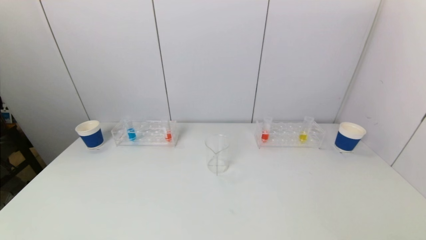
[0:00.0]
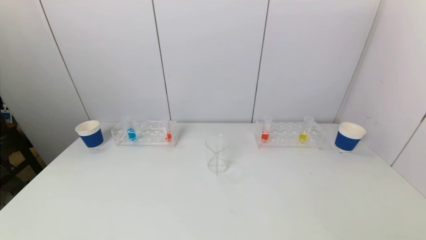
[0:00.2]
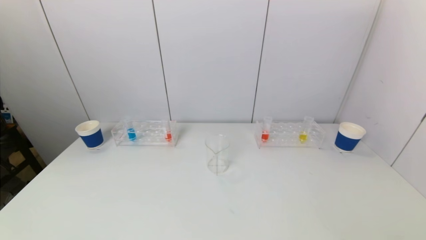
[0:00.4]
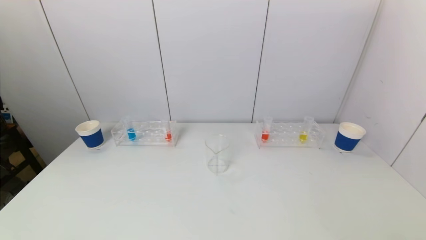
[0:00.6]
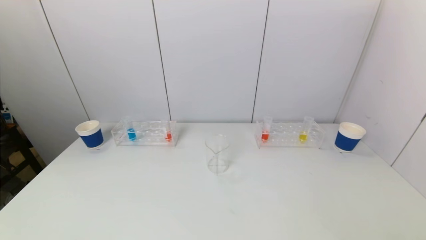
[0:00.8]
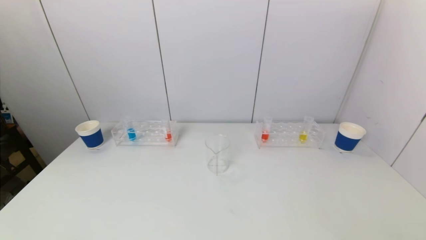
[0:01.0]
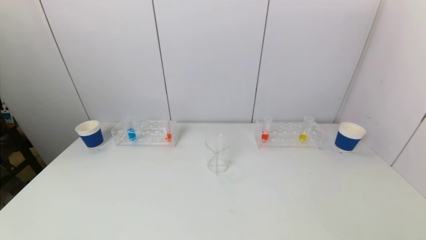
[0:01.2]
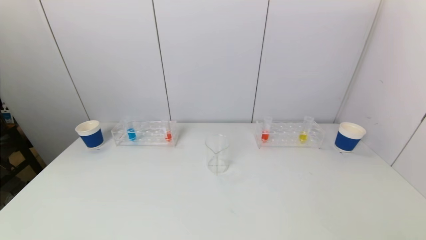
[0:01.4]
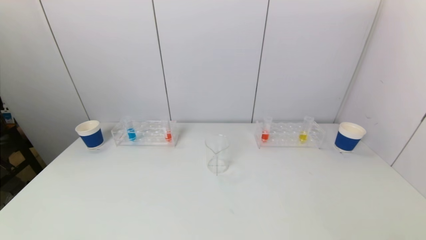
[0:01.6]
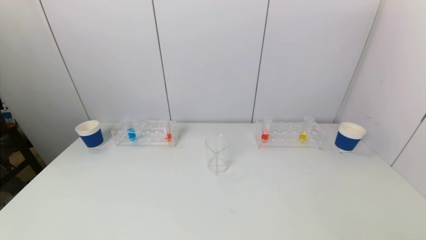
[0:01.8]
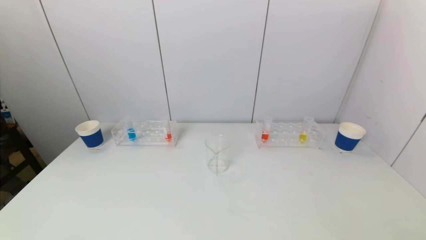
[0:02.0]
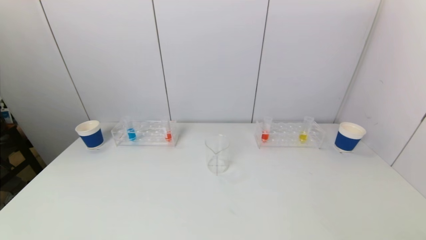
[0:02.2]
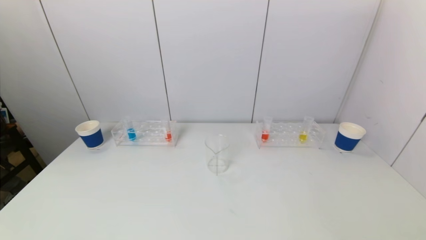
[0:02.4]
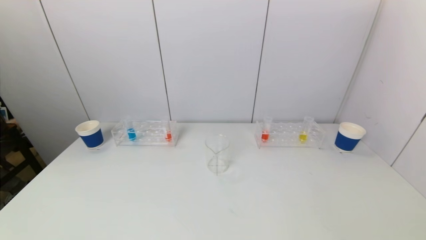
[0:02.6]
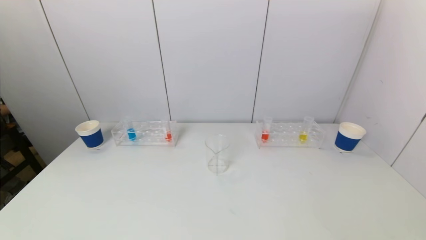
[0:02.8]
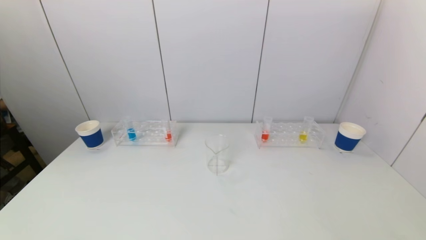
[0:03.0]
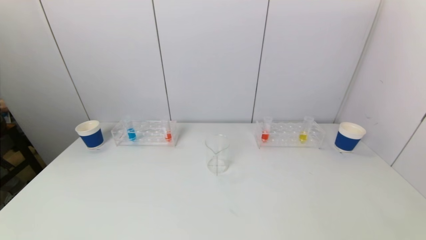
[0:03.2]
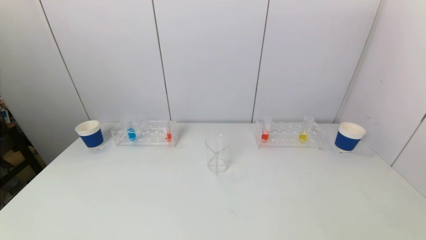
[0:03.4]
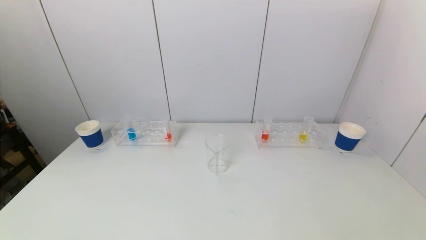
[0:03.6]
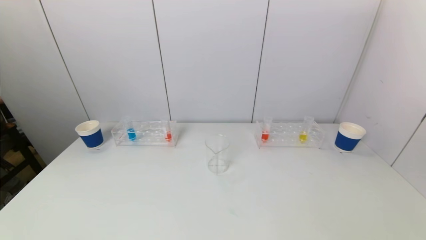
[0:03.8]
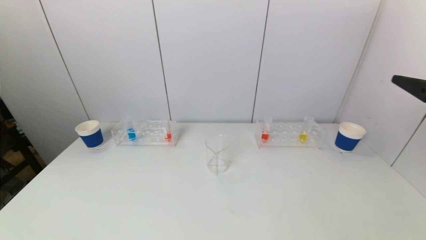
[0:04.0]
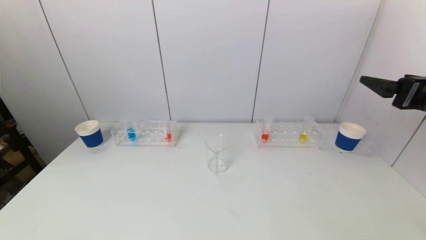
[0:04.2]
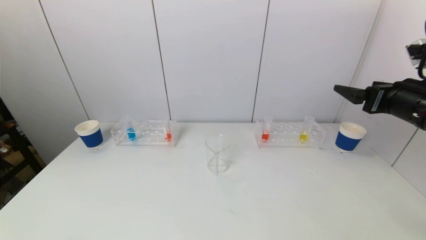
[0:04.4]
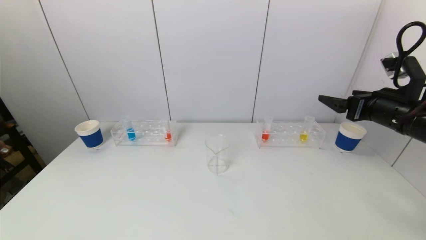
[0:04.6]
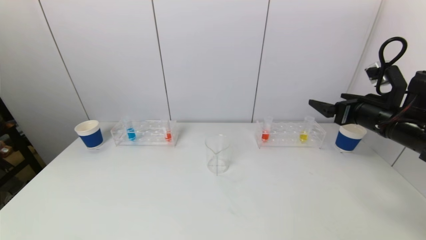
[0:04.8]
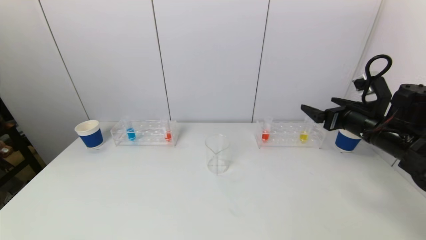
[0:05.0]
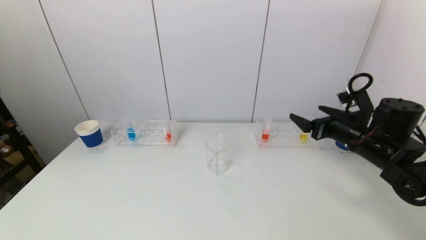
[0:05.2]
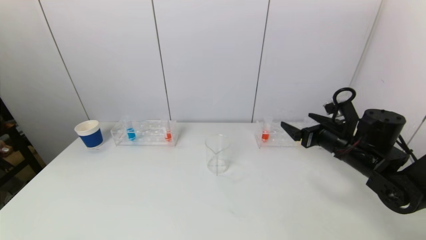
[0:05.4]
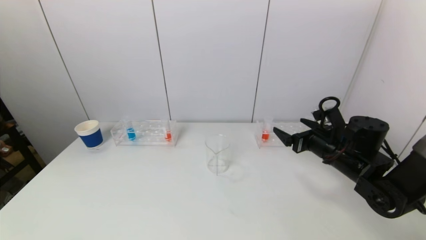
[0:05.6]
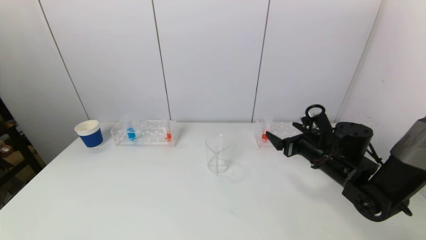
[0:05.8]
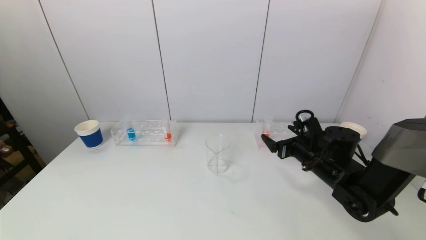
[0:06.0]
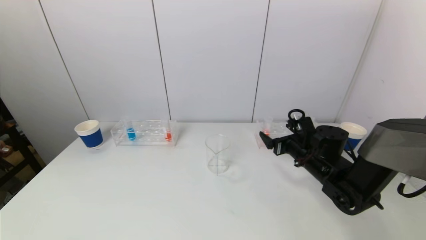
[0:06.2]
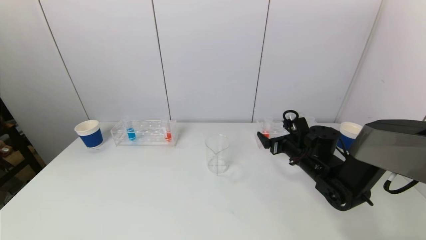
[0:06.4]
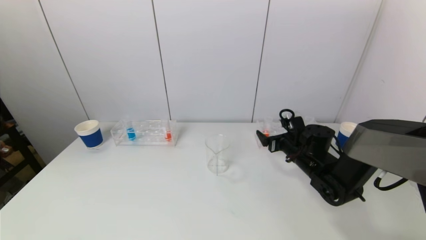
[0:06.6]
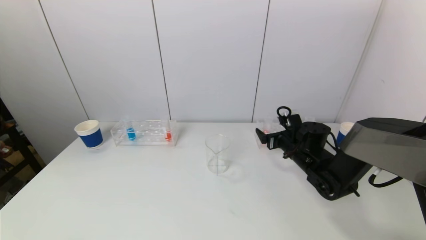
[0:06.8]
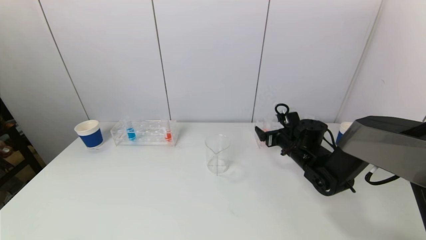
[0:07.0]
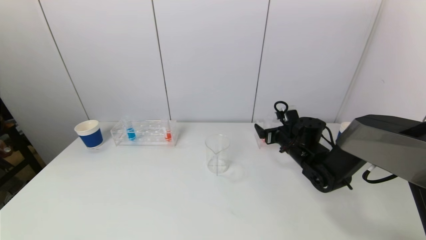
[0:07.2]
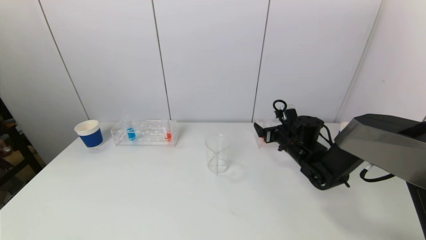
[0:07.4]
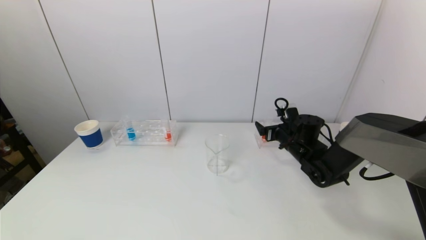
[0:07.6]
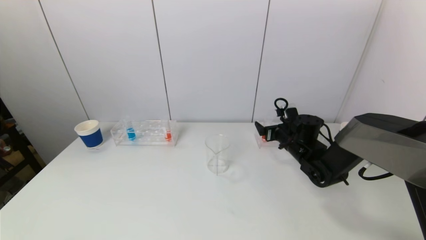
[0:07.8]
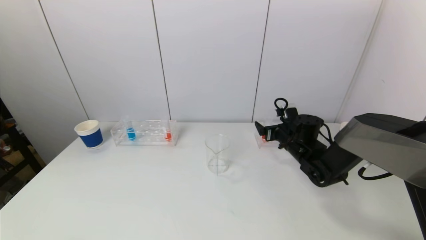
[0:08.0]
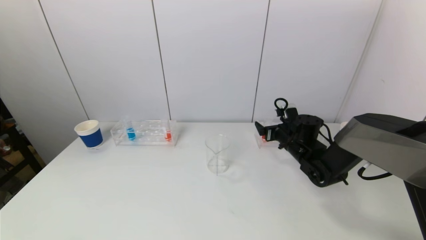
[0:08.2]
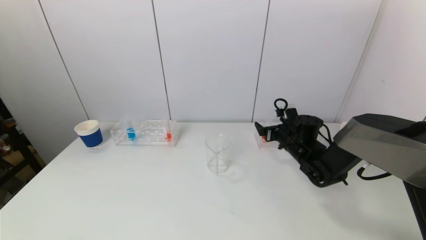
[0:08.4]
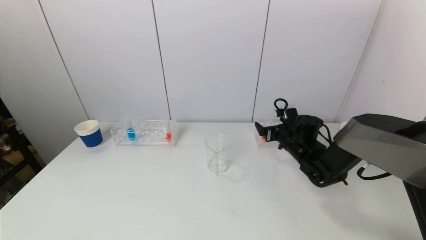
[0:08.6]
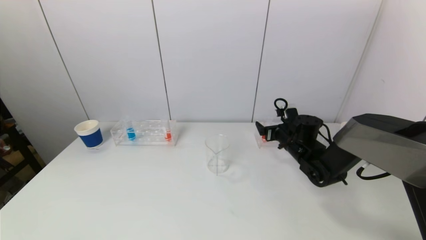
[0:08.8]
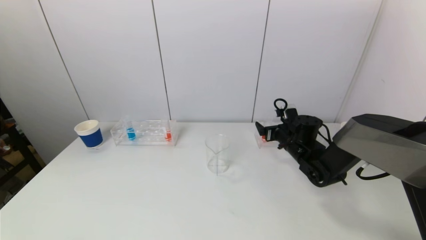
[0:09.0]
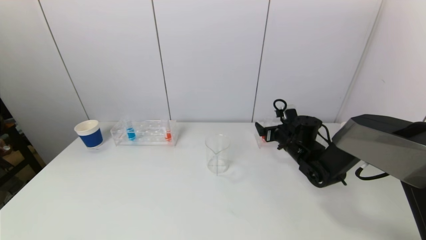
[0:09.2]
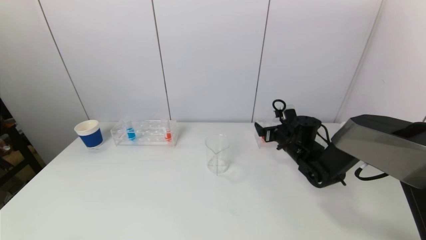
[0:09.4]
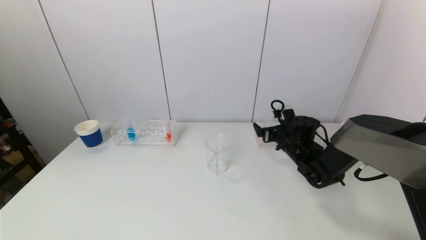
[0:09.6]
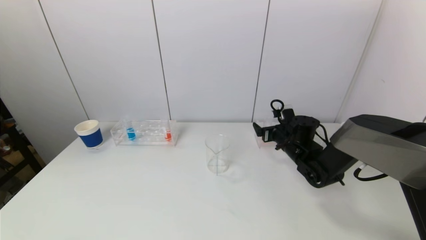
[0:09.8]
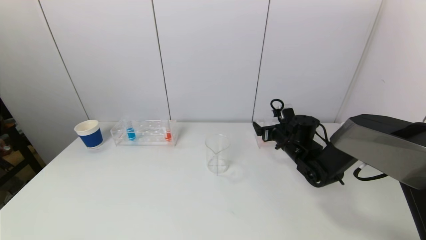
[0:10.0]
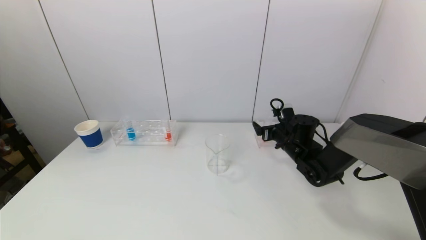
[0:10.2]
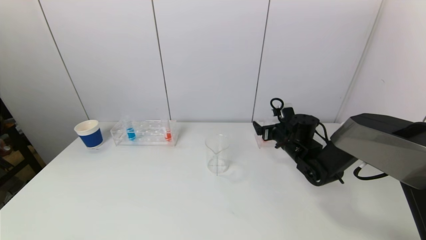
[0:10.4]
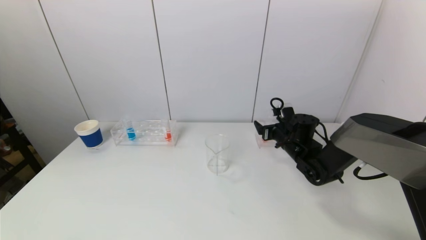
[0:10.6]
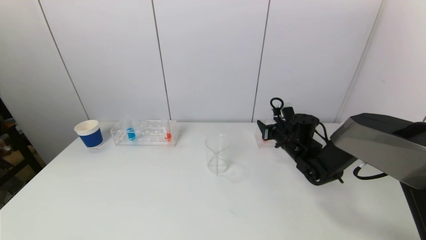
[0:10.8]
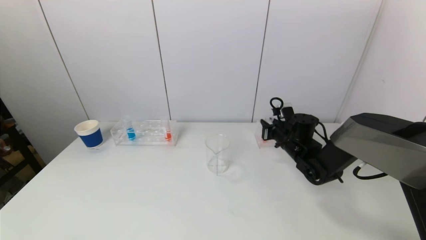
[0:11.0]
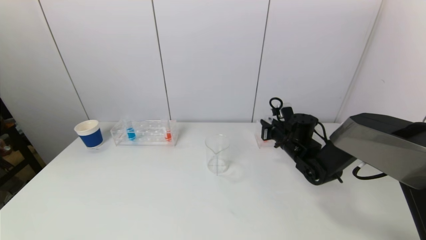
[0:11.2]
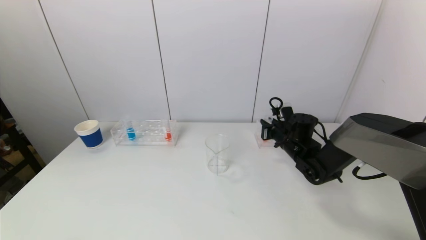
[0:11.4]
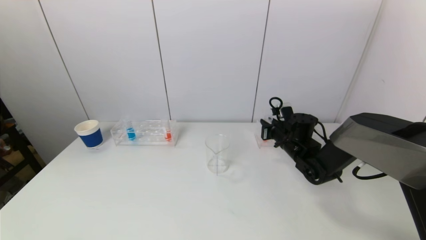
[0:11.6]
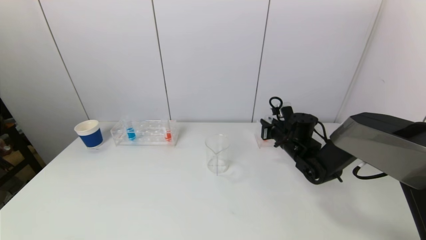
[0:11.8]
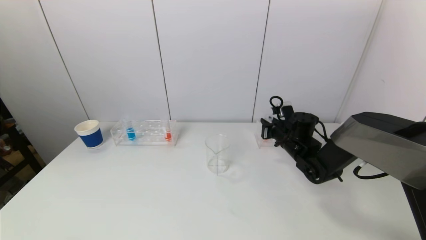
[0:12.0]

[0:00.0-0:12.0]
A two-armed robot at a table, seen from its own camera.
Task of the whole recording: pick up a test tube with pigment on left test tube rack and a test tube with pigment on right test tube rack by grippers and pour them into the beaker.
Step, 0:00.0 to 0:11.4: Grasp the red reagent with the right gripper.
0:00.0 to 0:01.6: Neither gripper changes place.
0:03.0 to 0:04.4: The right gripper shifts about 30 cm forward.
0:04.4 to 0:06.0: The right gripper travels downward and to the left by about 20 cm.
0:06.0 to 0:07.6: The right gripper heads forward, covering roughly 10 cm.
0:07.6 to 0:10.4: Both grippers stay about where they are.
0:10.4 to 0:12.0: The right gripper closes up.

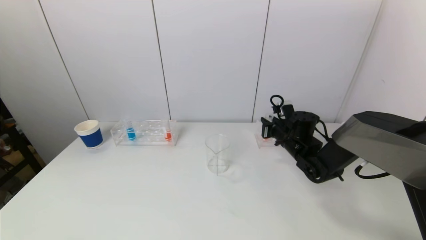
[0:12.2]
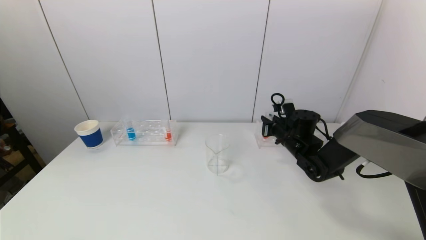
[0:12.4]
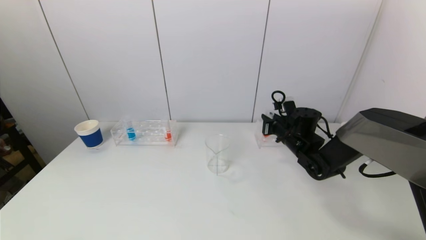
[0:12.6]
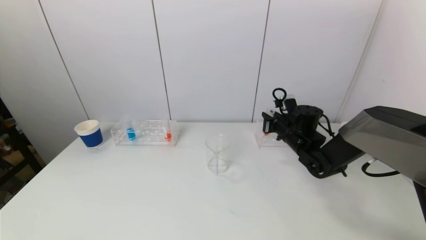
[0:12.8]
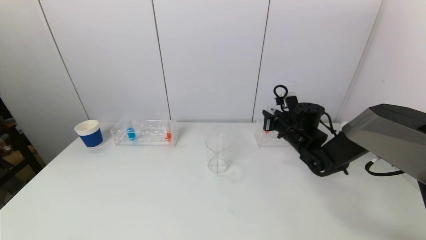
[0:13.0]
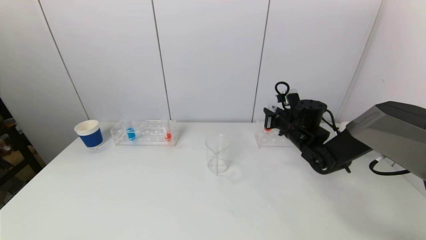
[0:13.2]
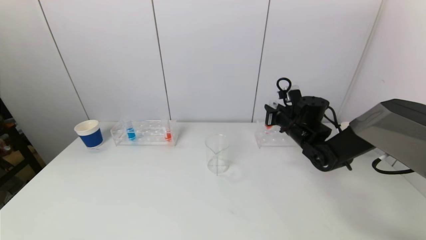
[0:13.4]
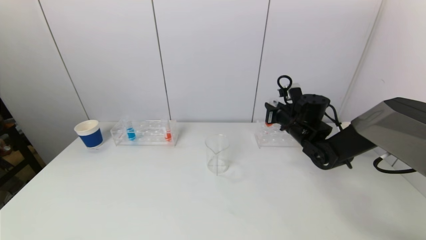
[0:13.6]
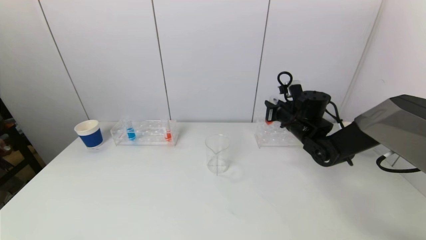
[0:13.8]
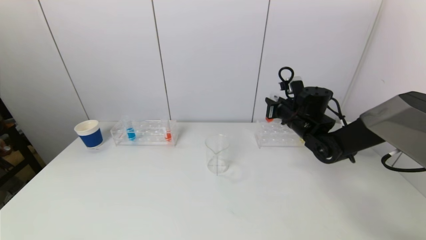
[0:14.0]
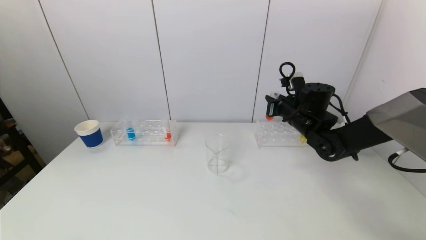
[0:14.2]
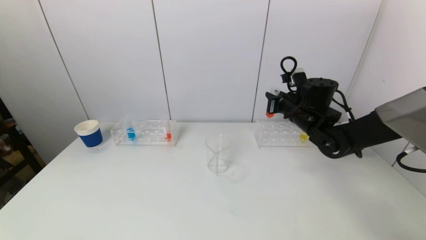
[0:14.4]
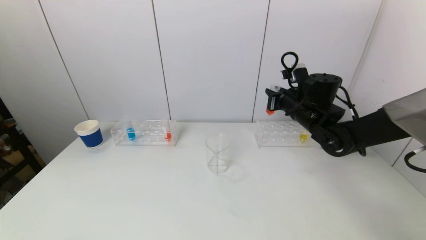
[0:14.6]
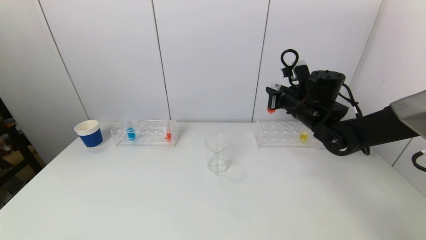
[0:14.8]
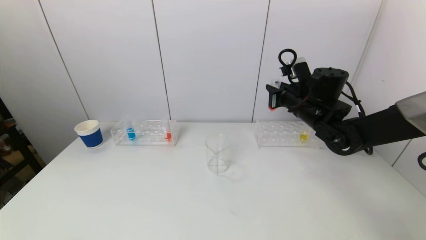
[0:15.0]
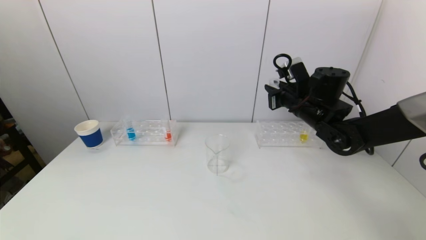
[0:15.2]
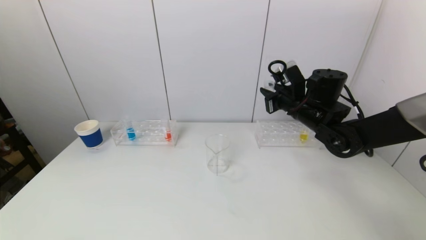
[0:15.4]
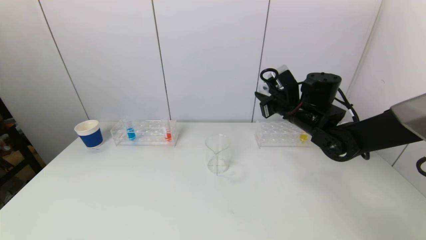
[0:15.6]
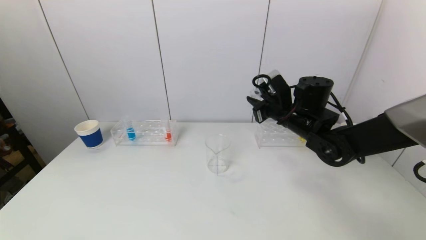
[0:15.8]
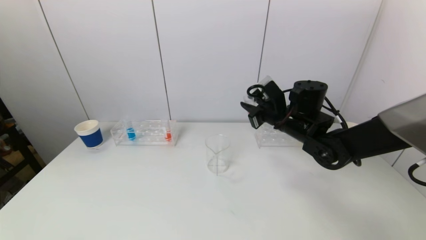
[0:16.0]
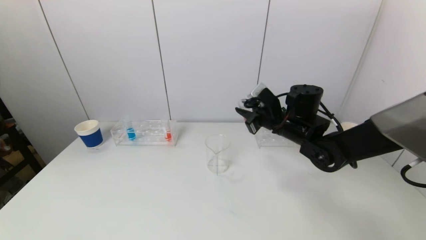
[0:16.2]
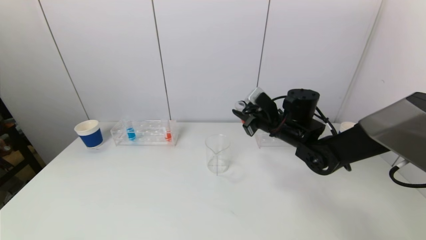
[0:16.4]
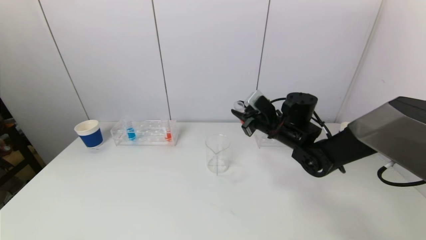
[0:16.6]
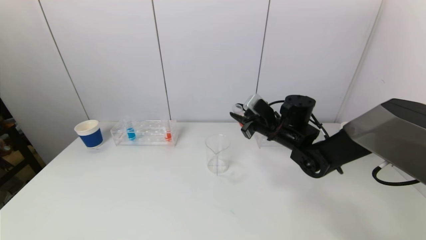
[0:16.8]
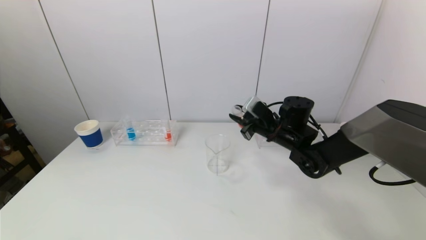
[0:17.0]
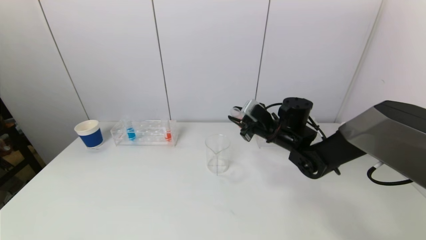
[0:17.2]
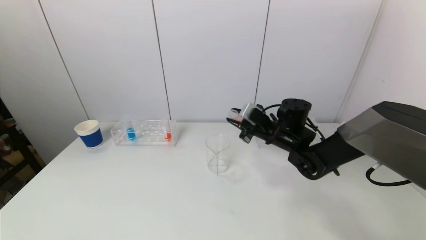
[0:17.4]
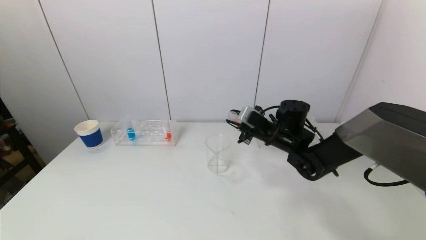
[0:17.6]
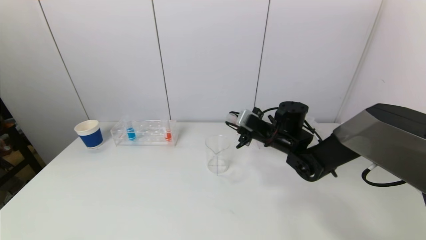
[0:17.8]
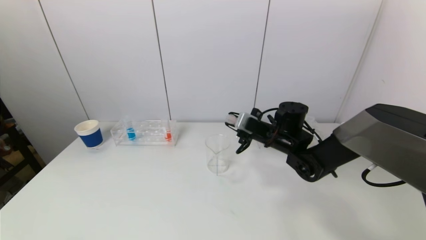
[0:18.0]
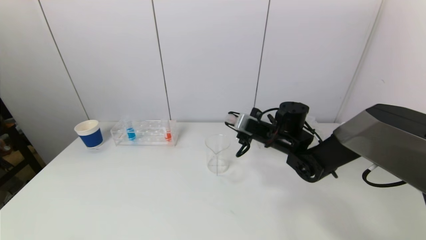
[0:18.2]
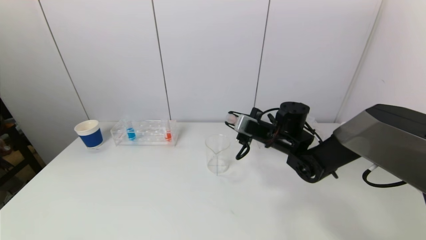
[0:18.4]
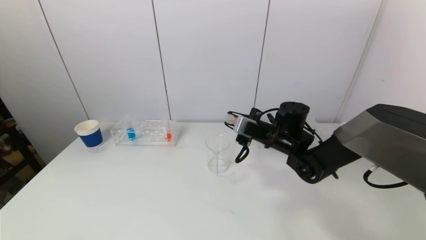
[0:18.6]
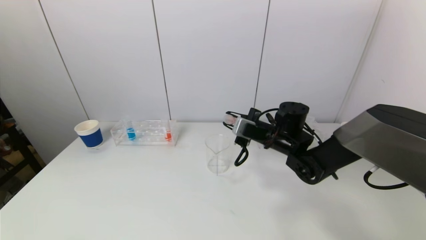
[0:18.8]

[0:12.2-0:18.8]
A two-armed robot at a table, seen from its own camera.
Task of the whole recording: pick up a test tube with pigment on left test tube rack and a test tube with pigment on right test tube rack by grippers and pour them into the beaker.
0:12.2 to 0:13.8: The right gripper moves upward, some 5 cm.
0:13.8 to 0:15.4: The right gripper goes about 5 cm upward.
0:15.4 to 0:17.2: The right gripper travels downward by about 5 cm.
